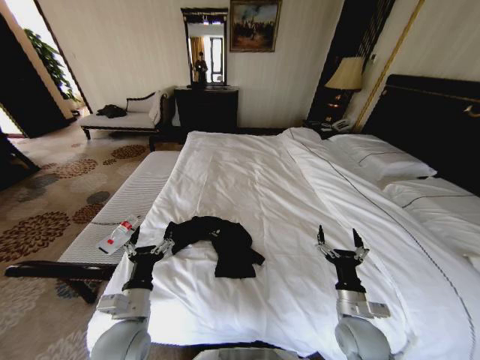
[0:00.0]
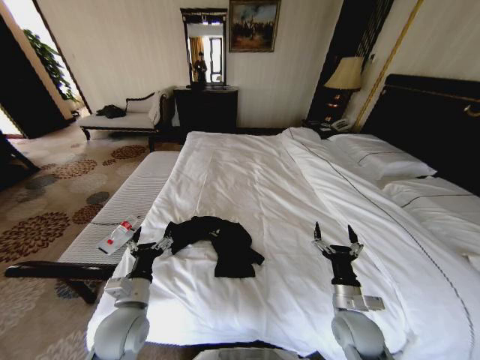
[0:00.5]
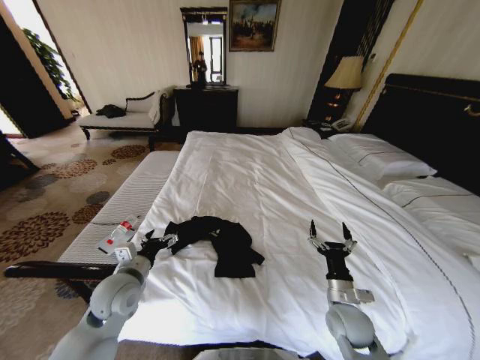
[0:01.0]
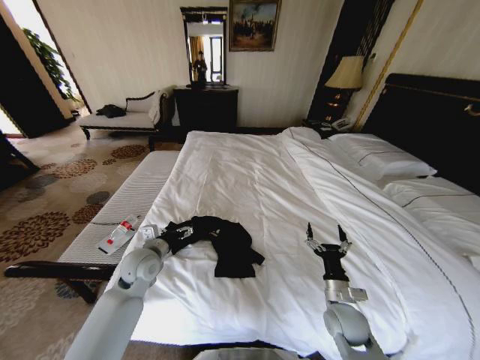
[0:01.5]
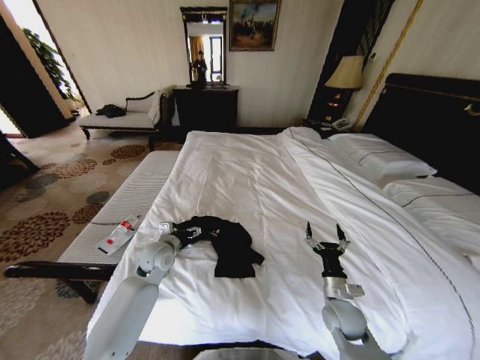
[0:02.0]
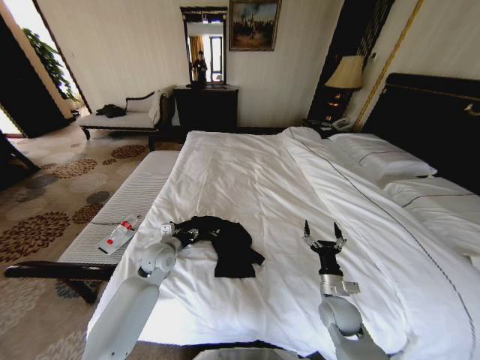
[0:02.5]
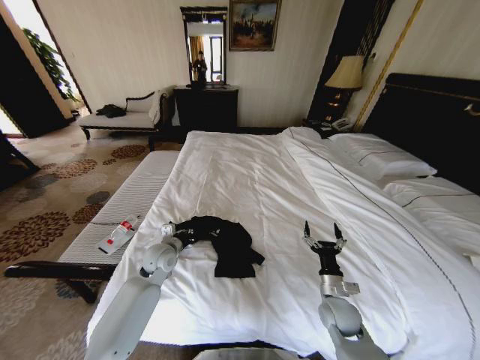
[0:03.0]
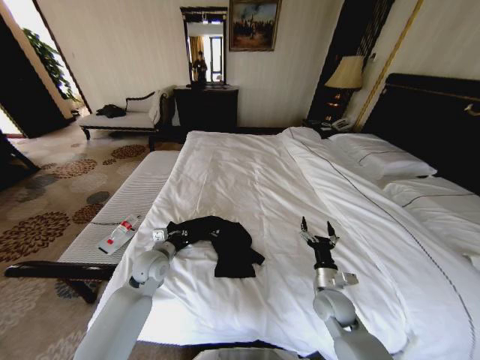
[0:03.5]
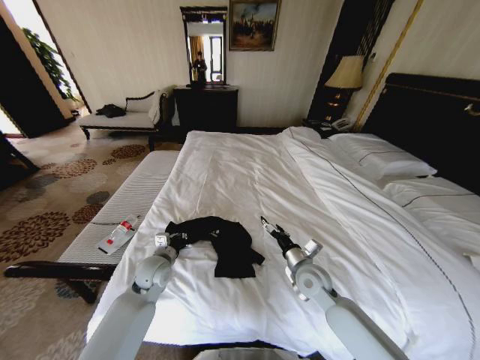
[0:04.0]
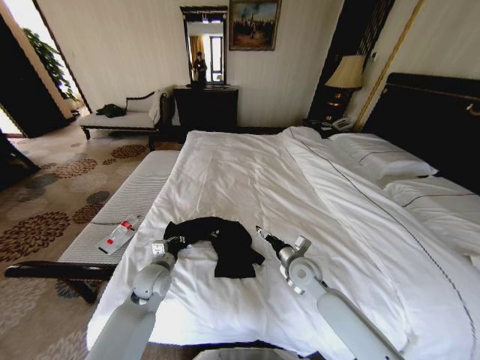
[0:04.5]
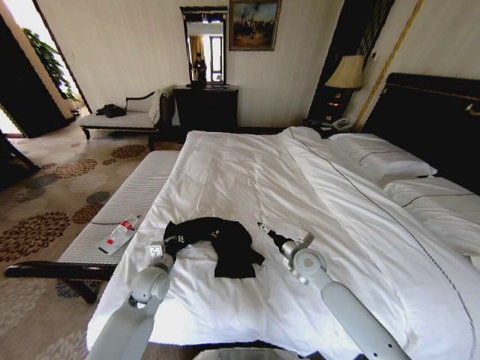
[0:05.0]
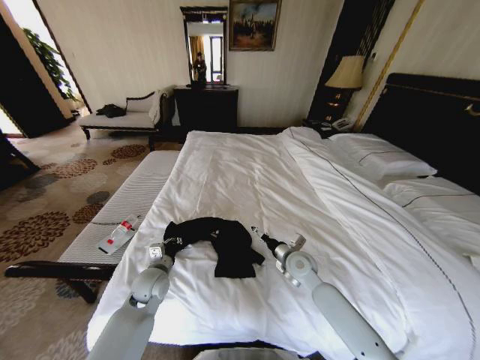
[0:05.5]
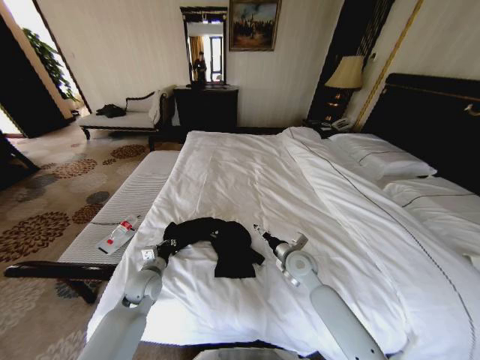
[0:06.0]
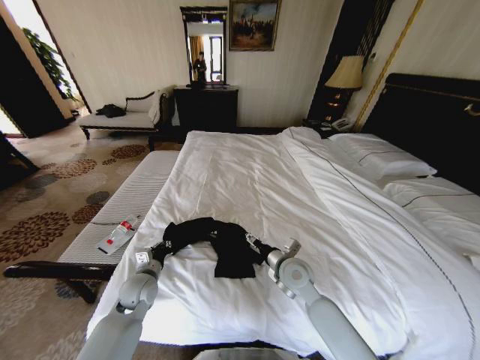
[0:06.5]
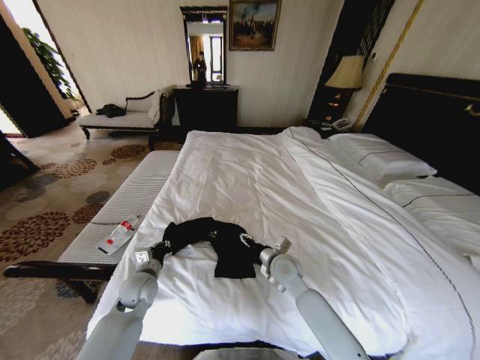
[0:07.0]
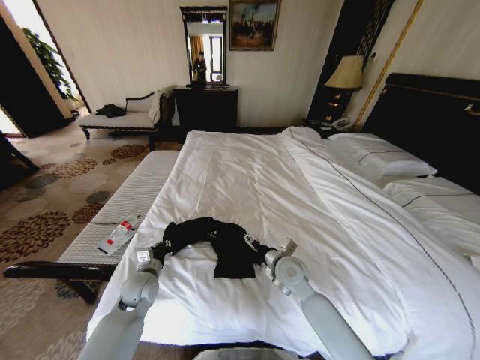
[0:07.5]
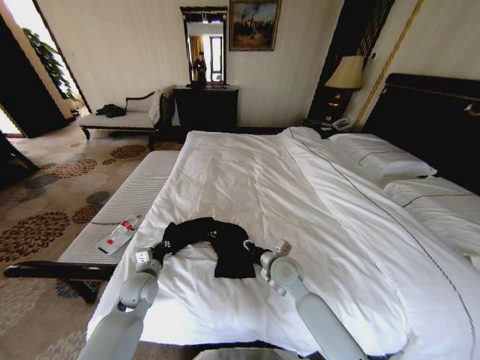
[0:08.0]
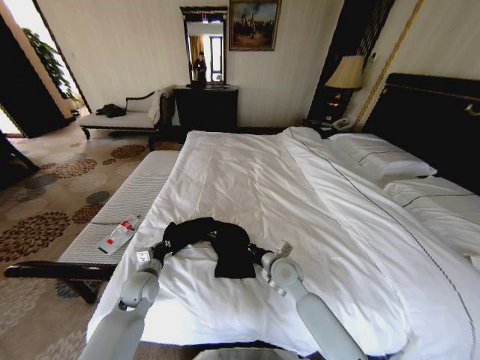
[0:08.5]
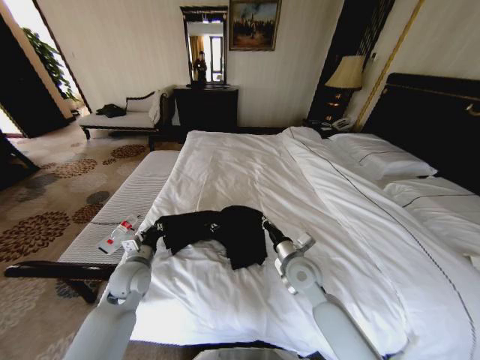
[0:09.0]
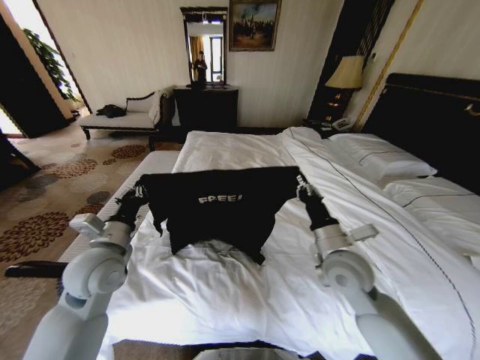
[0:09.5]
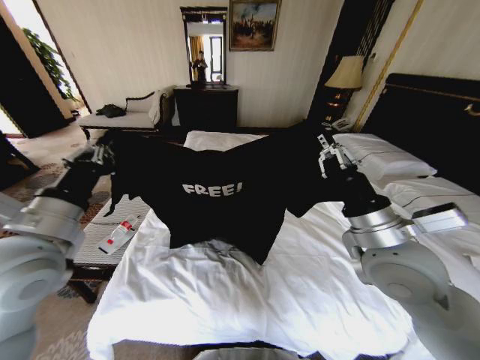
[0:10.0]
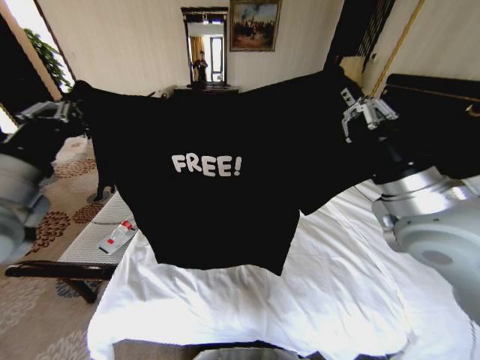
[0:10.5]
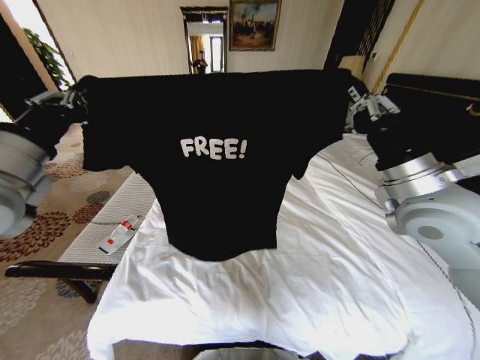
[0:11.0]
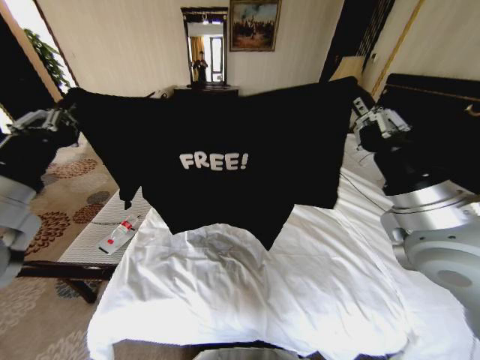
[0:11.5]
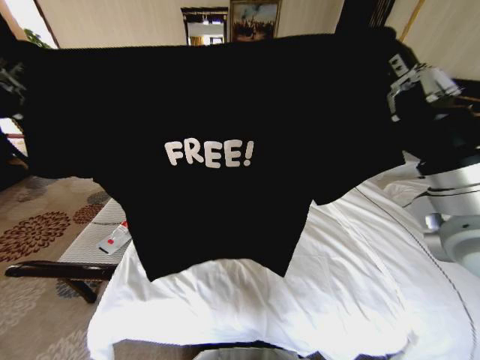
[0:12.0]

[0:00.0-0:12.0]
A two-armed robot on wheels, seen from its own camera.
Task of the whole recording: Fold the clothes on the bed.
0:00.0 to 0:02.0: The right gripper goes some 5 cm forward, while the left gripper heads forward, covering about 20 cm.
0:02.0 to 0:04.0: The left gripper closes. The right gripper is displaced forward, to the left and upward by approximately 10 cm.
0:04.0 to 0:06.0: The left gripper moves approximately 5 cm.
0:06.0 to 0:08.0: The right gripper shifts roughly 5 cm to the left, and closes up.
0:08.0 to 0:10.0: The left gripper heads upward, covering roughly 30 cm; the right gripper moves upward and to the right, approximately 25 cm, and closes up.
0:10.0 to 0:12.0: The grippers both shift upward by about 10 cm.

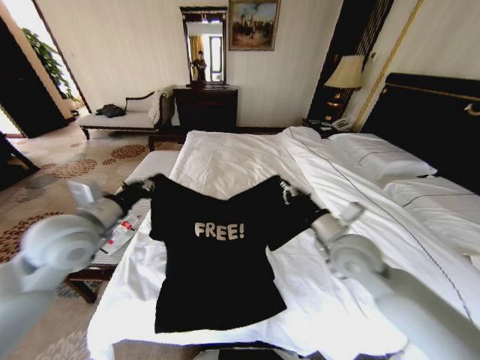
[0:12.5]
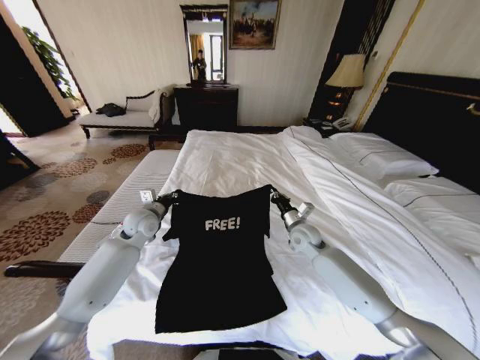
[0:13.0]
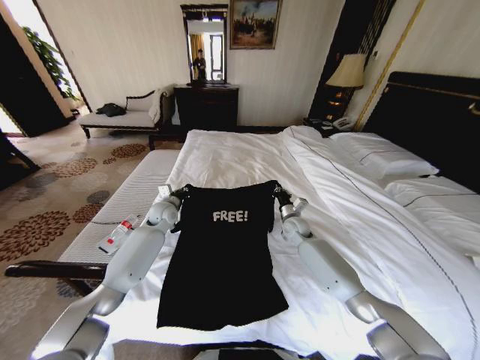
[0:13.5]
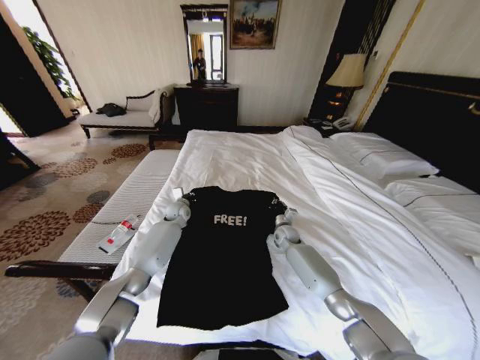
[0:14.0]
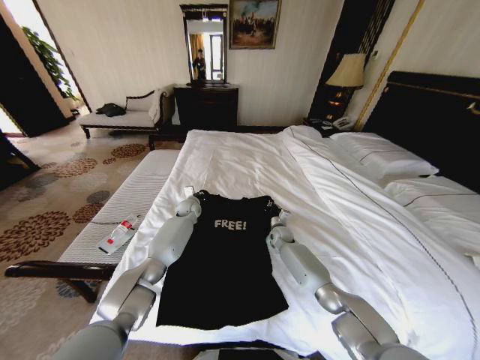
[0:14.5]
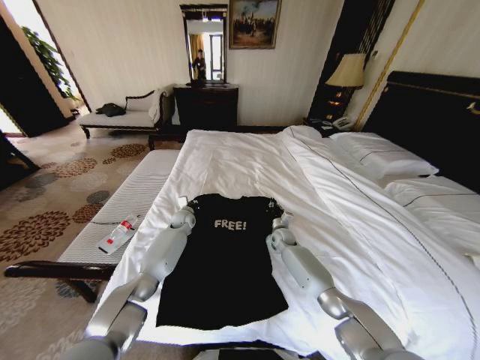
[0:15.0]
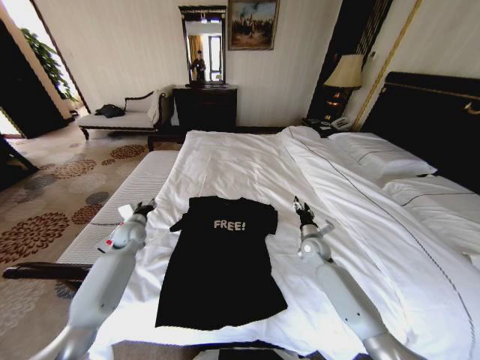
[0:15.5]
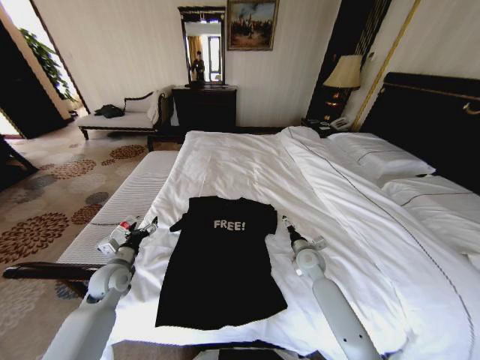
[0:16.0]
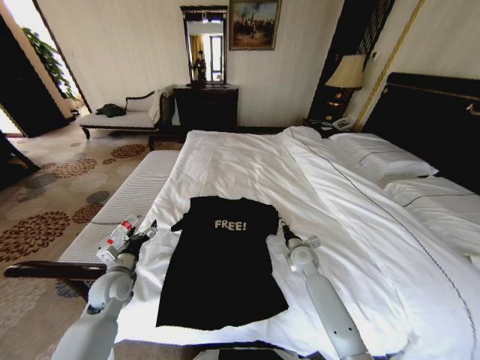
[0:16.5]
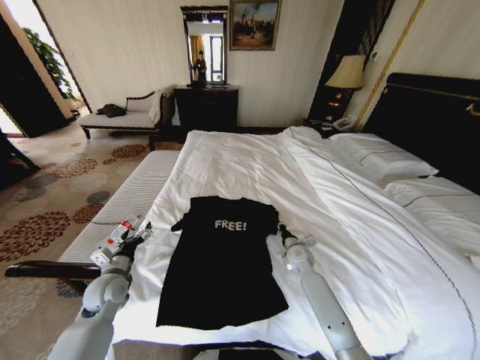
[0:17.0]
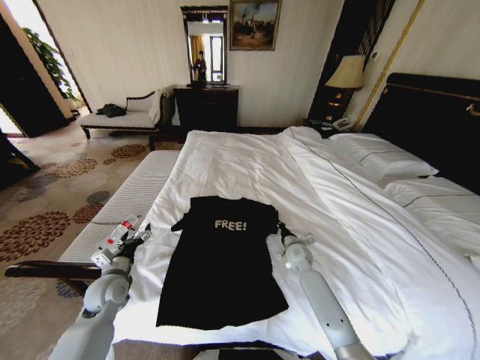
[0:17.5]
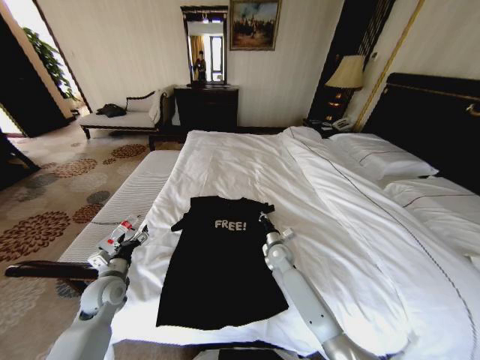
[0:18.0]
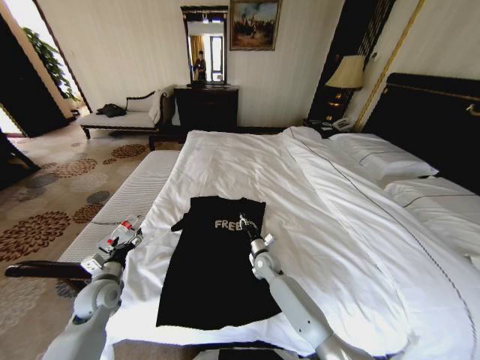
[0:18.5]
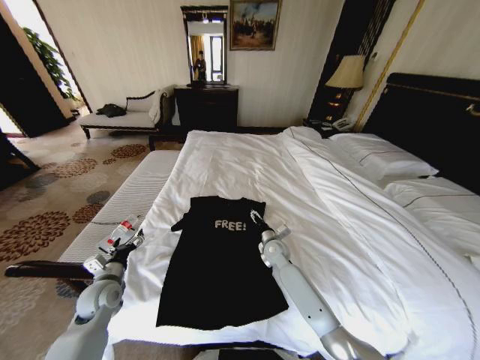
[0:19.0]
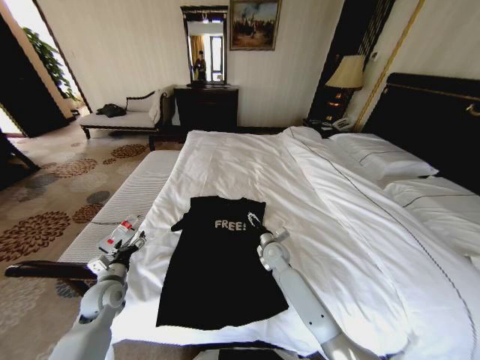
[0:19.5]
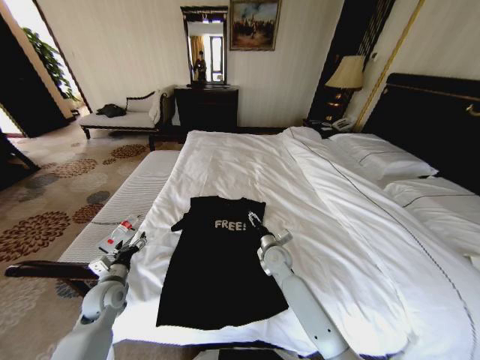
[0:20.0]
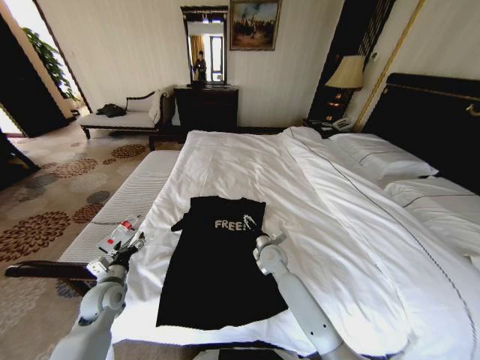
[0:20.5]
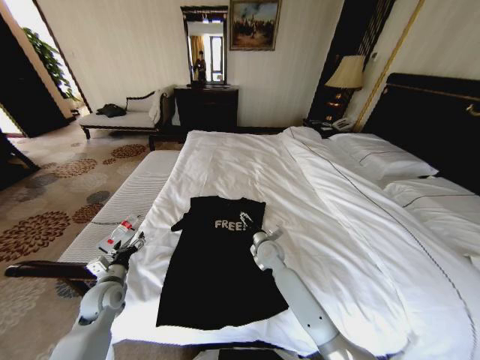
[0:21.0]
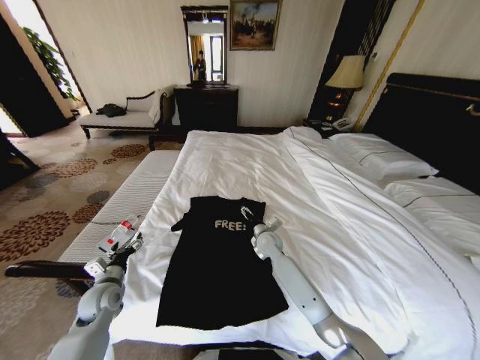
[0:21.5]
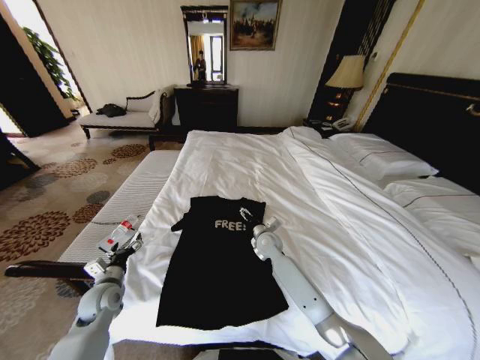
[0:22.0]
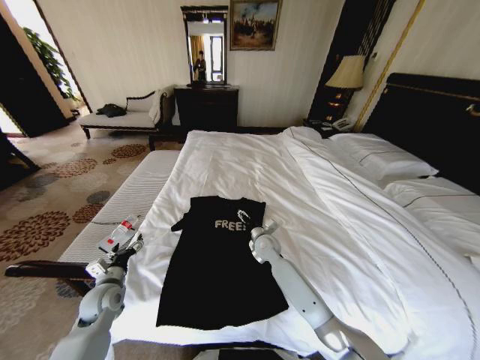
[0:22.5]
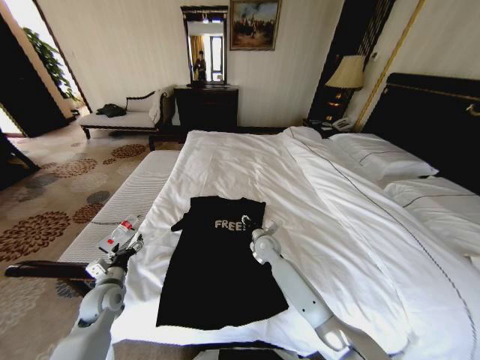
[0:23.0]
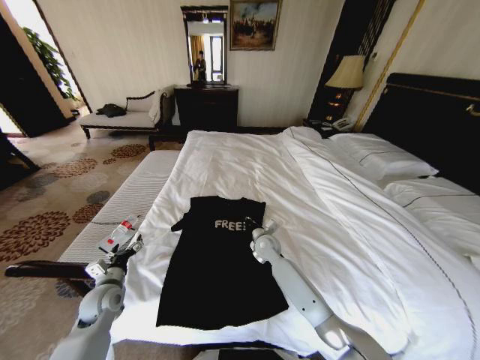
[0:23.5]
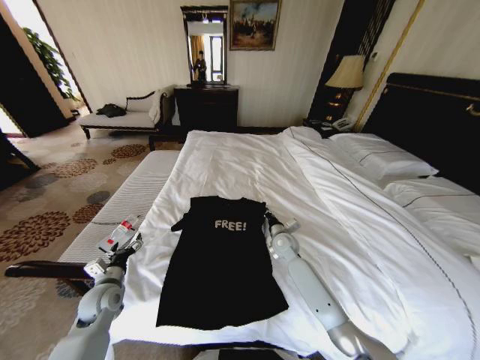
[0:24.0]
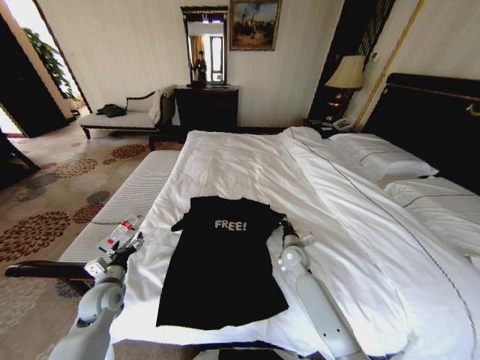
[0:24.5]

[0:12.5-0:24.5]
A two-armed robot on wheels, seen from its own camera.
Task of the whole recording: Fold the clothes on the bed.
0:12.5 to 0:14.5: The right gripper heads downward and forward, covering about 35 cm, while the left gripper shifts roughly 40 cm forward, downward and to the right.
0:14.5 to 0:16.5: The left gripper heads backward and to the left, covering roughly 35 cm, and opens its fingers; the right gripper travels backward by about 15 cm, and opens up.
0:16.5 to 0:18.5: The right gripper heads to the left, covering some 15 cm, and closes up.
0:18.5 to 0:20.5: The right gripper heads upward, covering approximately 5 cm, and opens its fingers.
0:20.5 to 0:22.5: The grippers stay close to where they were, moving slightly.
0:22.5 to 0:24.5: The right gripper shifts about 10 cm to the right, and closes its fingers.

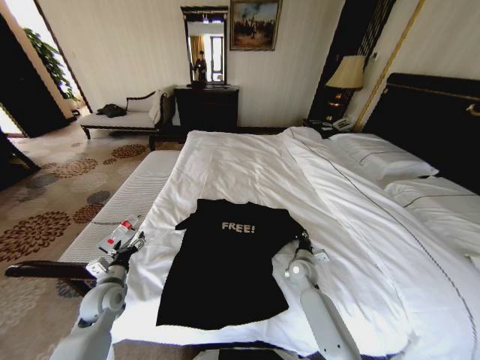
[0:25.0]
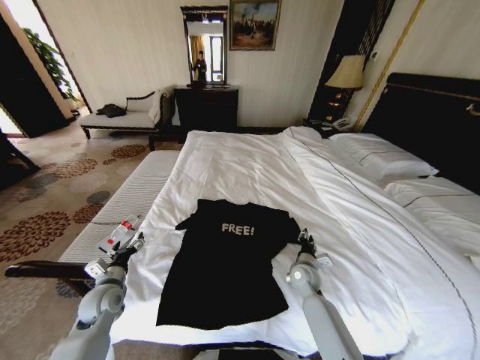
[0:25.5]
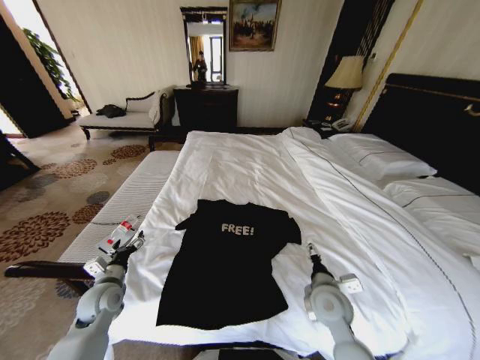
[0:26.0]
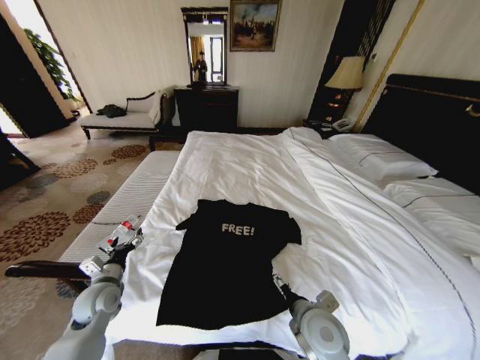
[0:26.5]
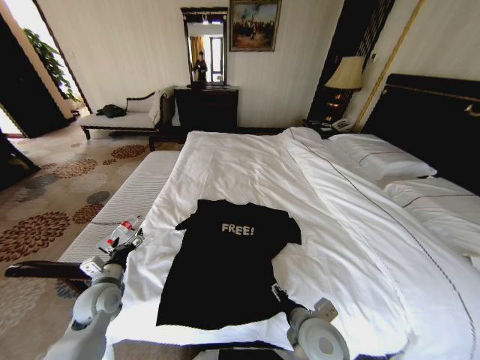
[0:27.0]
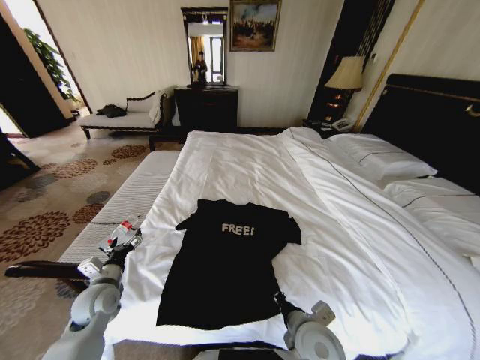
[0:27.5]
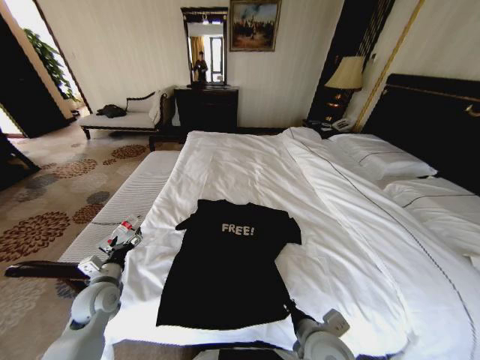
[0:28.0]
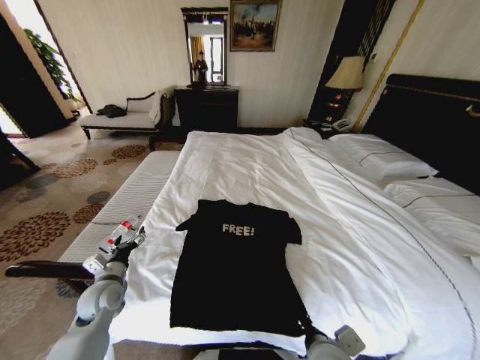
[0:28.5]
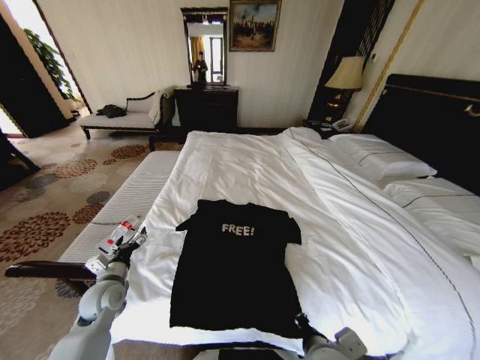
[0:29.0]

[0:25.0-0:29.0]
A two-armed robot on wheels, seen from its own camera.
Task of the whole recording: Fold the clothes on the bed.
0:25.0 to 0:27.0: The right gripper shifts some 25 cm backward and upward, and opens.
0:27.0 to 0:29.0: The right gripper heads backward, covering about 5 cm, and closes its fingers.
